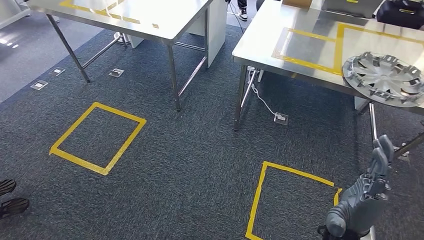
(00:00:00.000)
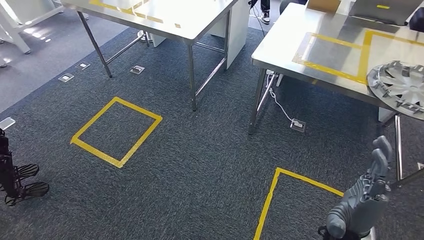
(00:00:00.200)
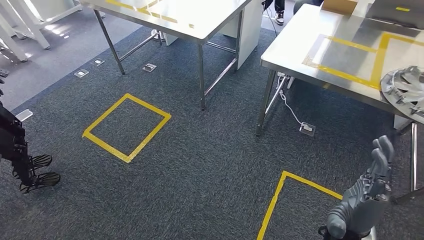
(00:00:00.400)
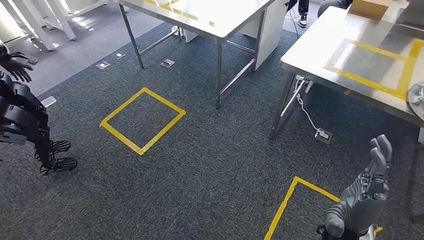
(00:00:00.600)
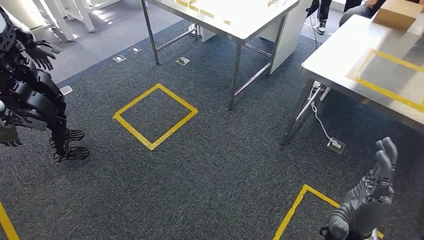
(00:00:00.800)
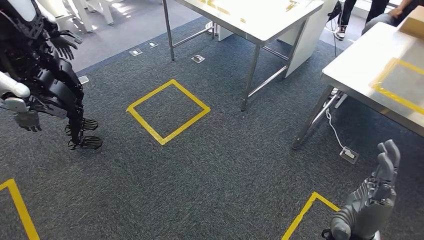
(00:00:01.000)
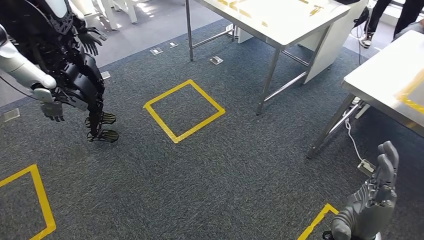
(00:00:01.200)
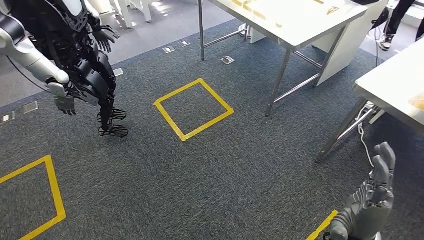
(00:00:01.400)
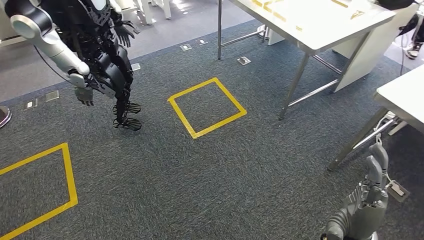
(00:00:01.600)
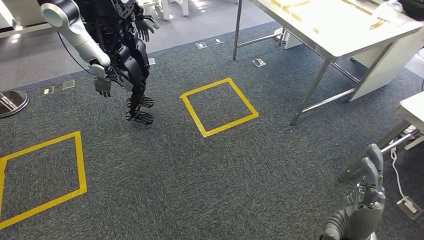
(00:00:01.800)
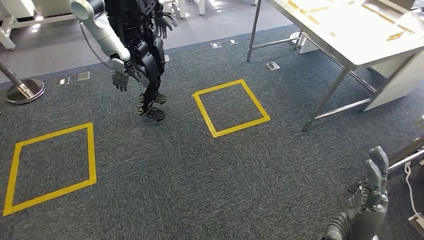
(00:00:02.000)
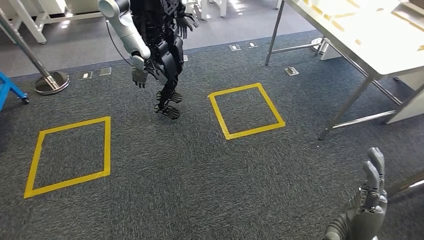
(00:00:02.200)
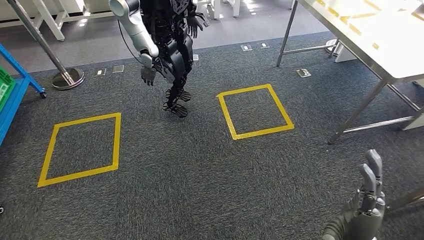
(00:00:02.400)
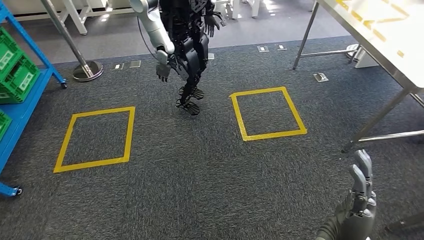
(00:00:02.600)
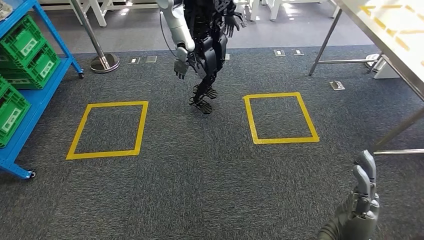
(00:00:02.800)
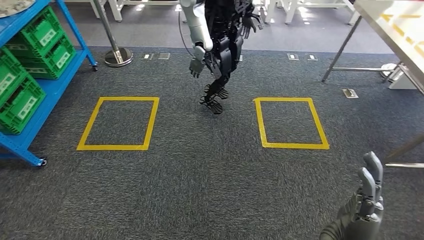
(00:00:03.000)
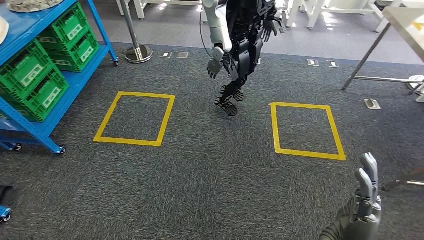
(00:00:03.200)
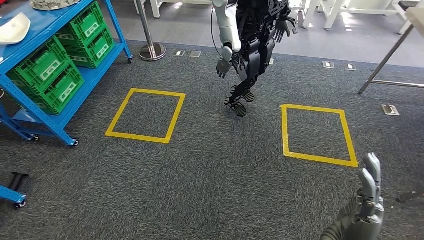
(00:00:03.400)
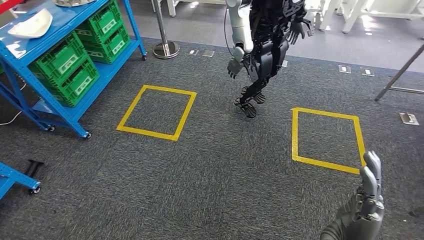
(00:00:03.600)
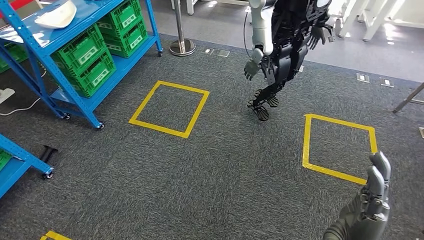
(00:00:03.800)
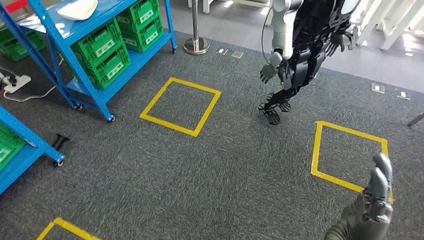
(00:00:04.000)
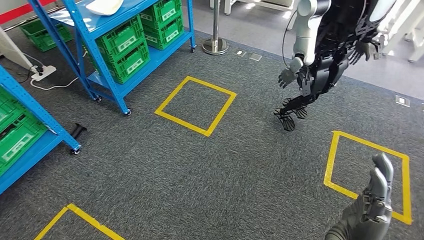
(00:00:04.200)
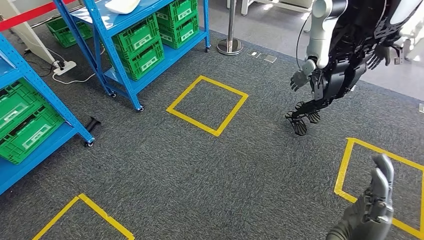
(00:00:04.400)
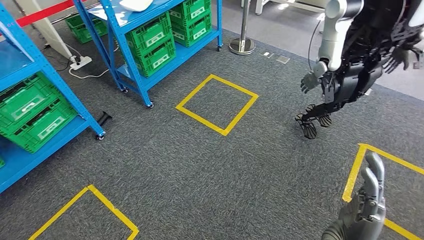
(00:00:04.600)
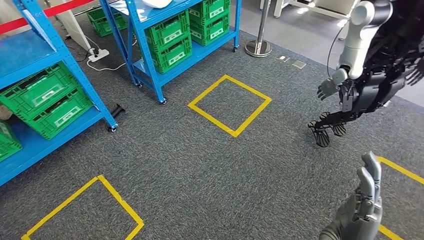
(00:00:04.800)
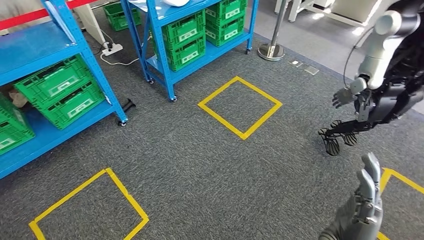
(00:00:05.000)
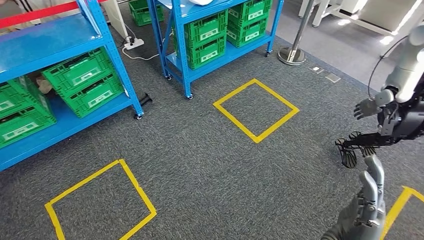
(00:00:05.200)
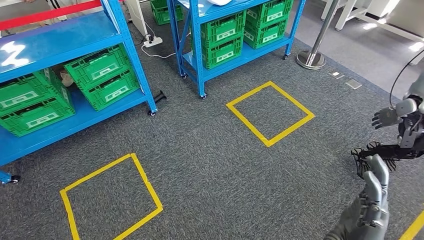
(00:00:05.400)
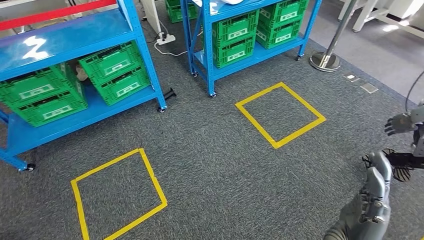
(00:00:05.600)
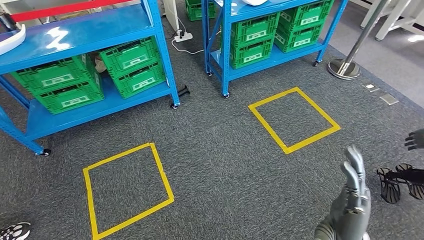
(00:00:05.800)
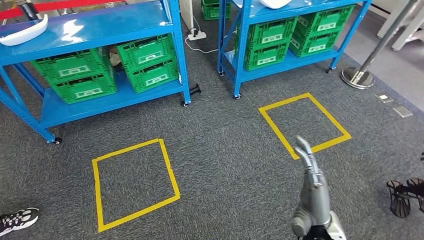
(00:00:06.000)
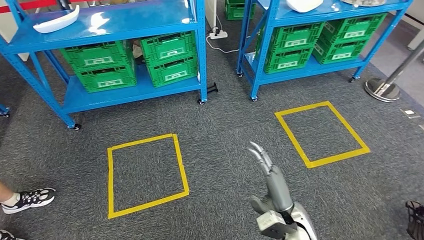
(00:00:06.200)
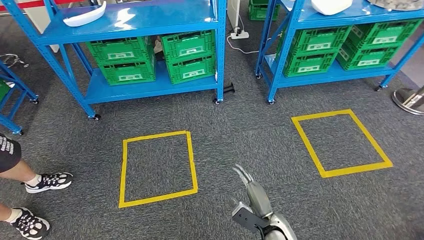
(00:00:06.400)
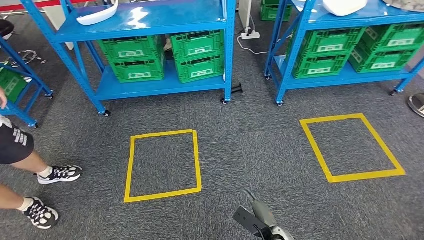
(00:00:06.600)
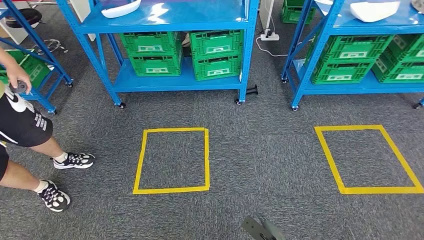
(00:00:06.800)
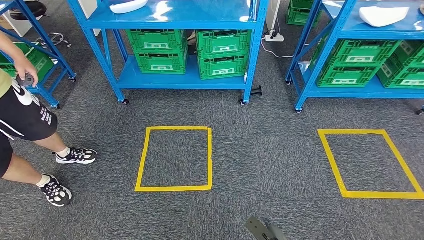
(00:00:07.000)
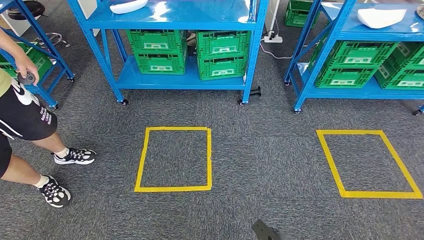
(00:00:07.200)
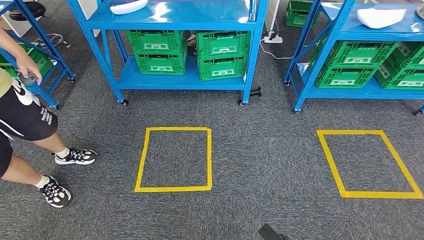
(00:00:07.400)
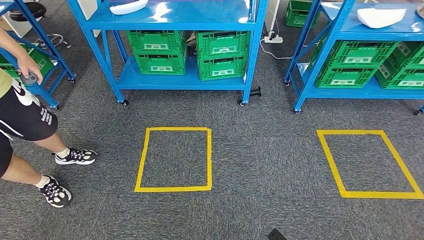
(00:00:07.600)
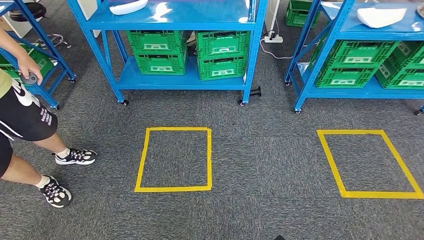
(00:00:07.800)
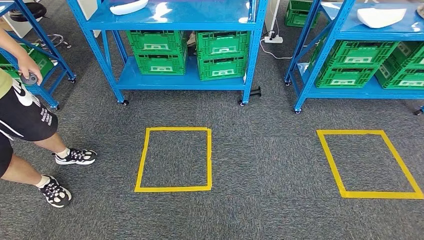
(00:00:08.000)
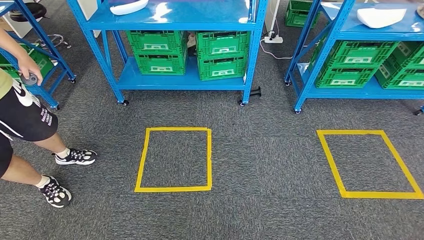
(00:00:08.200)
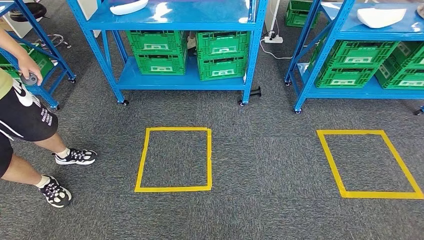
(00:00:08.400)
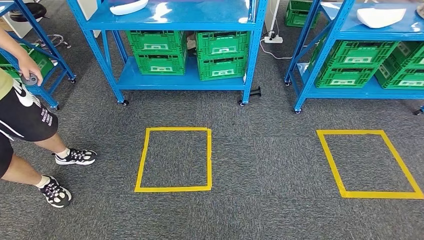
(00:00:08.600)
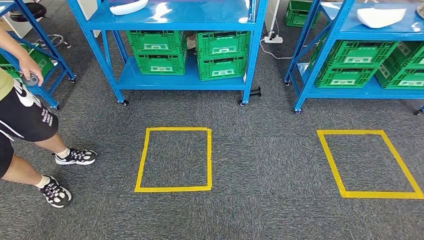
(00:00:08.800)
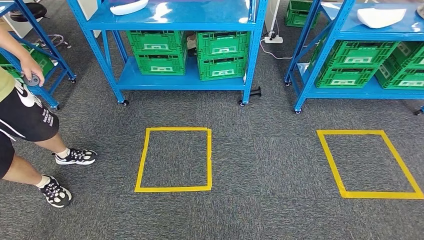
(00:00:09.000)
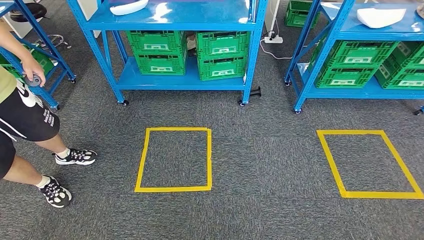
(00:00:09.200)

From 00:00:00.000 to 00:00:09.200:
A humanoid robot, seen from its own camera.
Step, from 00:00:00.000 to 00:00:09.200: Move to the initial position of the workbench.
From 00:00:07.600 to 00:00:09.200: The left hand shifts by about 5 cm.
